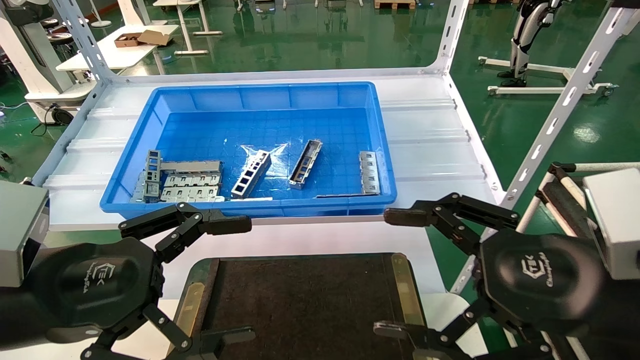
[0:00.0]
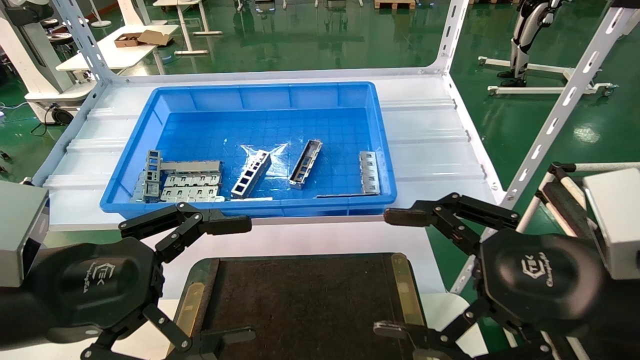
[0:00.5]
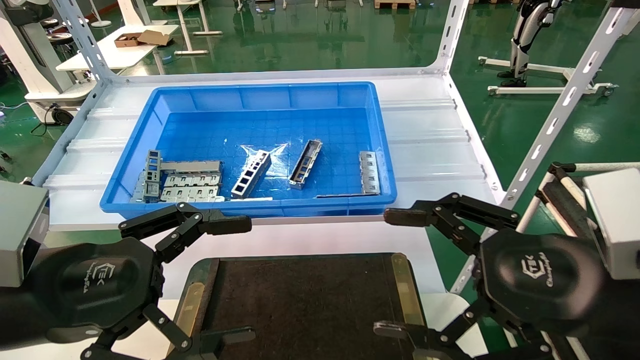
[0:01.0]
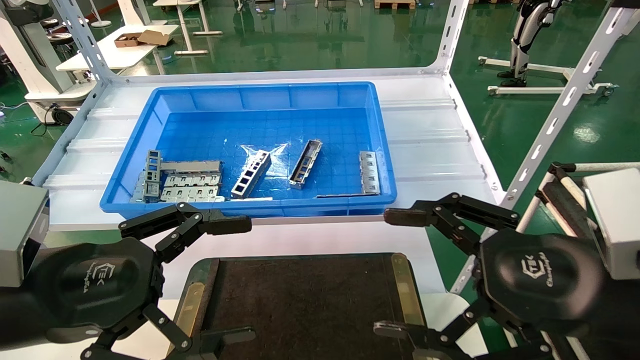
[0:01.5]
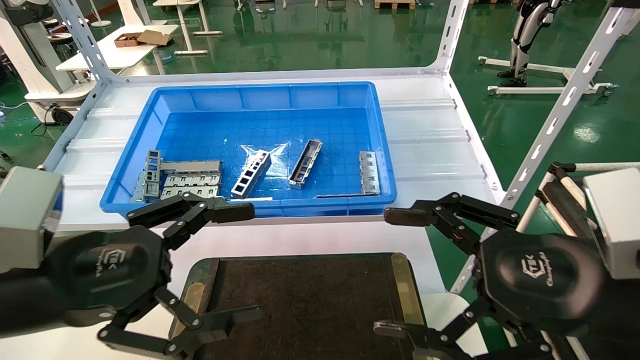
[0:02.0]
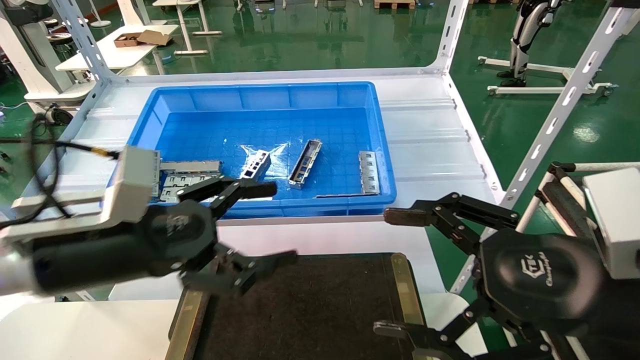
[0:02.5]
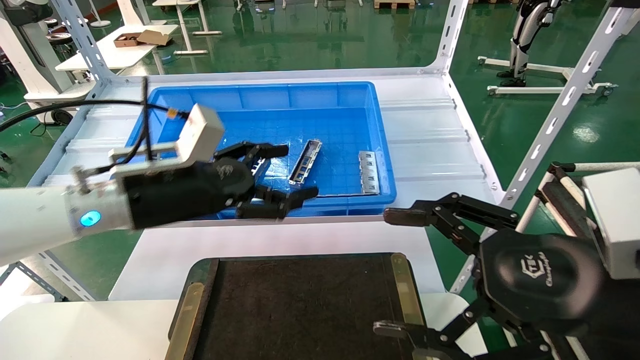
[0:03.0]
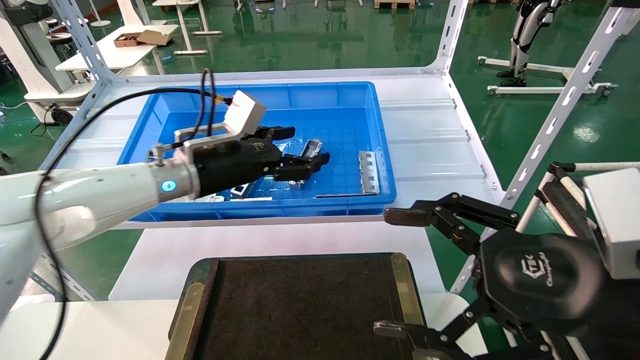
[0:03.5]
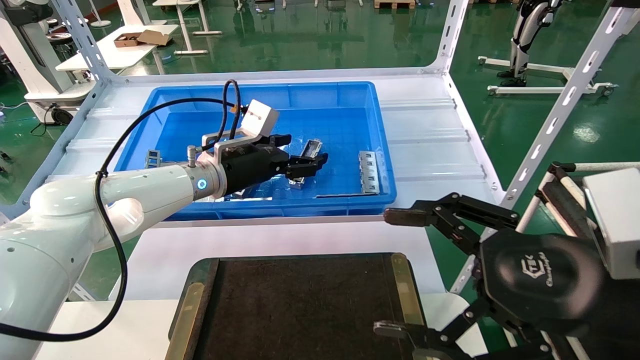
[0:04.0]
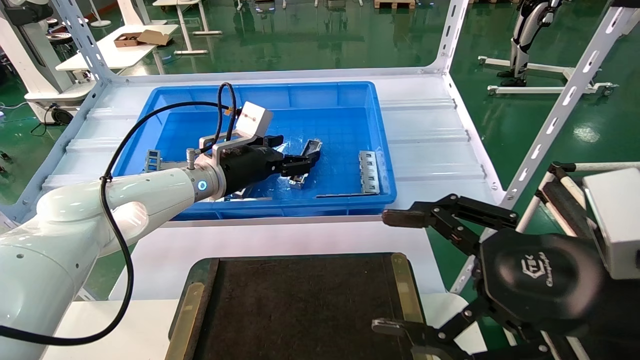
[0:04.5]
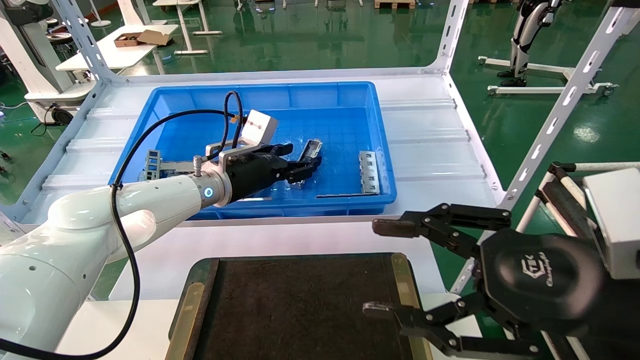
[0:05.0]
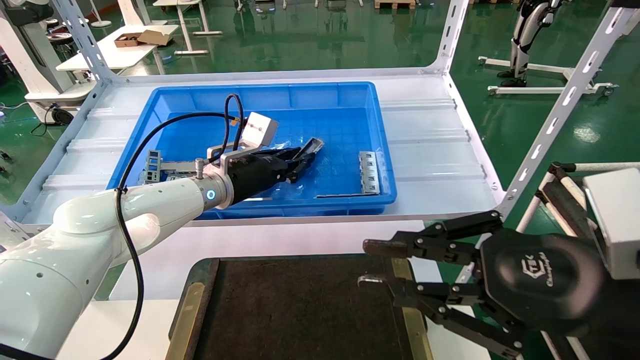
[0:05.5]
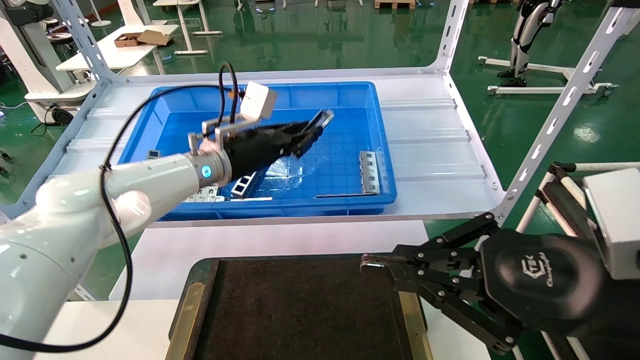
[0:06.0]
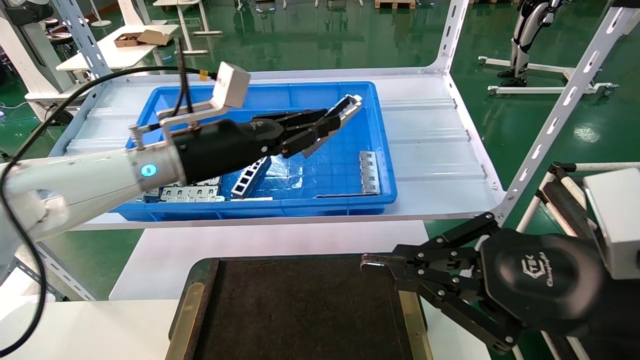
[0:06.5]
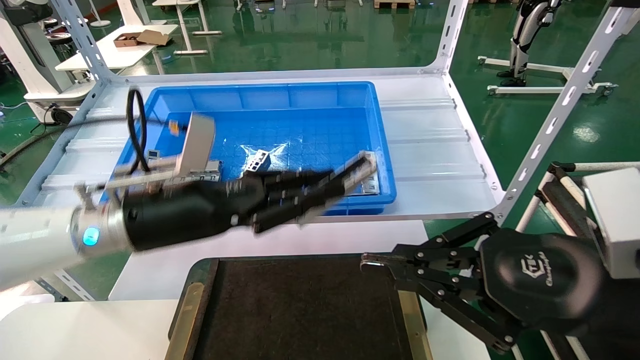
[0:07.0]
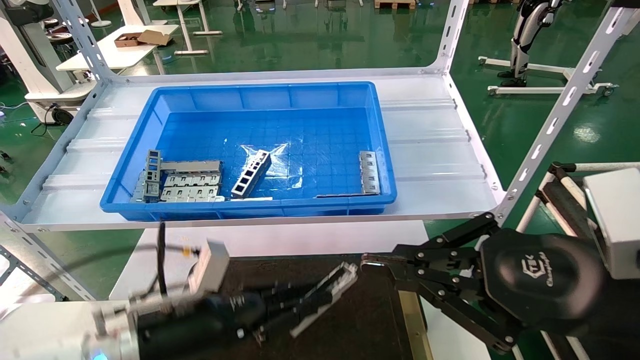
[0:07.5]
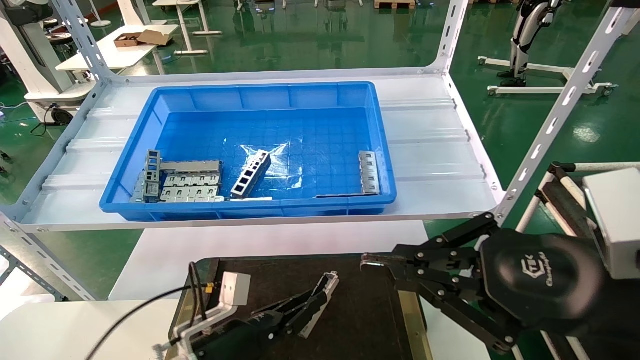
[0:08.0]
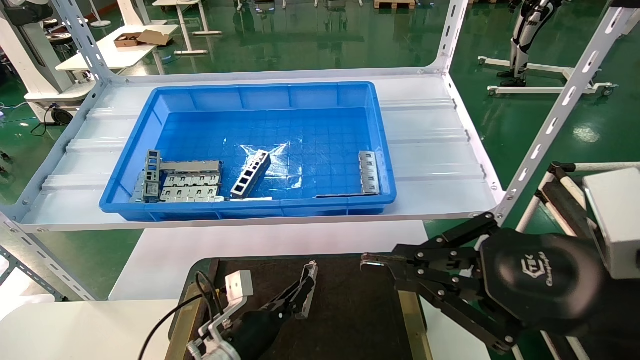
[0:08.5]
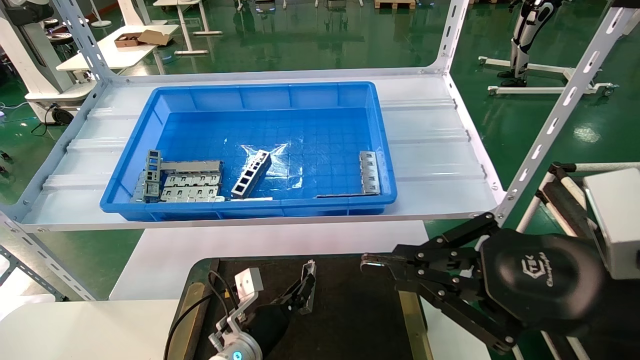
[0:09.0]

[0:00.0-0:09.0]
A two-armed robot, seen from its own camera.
Task of the whole recording: Grasp the part with one hand and place it on the black container.
Step, 0:02.5 to 0:06.0: Pick up the front USB bracket from the feeding area.
0:00.0 to 0:02.0: There are only small adjustments of the grippers.
0:02.0 to 0:04.5: The left gripper travels forward by about 30 cm.
0:04.5 to 0:07.0: The left gripper moves backward, roughly 15 cm, and closes. Meanwhile the right gripper closes up.
0:07.0 to 0:09.0: The left gripper travels downward by about 30 cm.

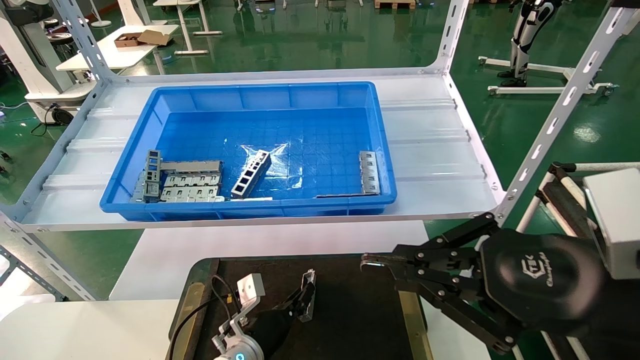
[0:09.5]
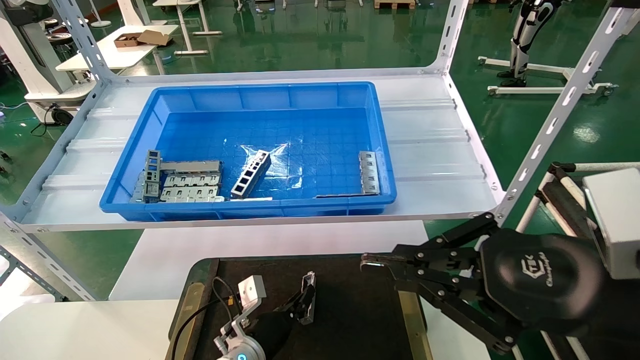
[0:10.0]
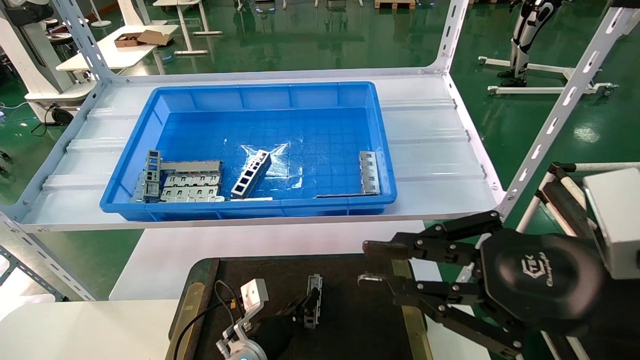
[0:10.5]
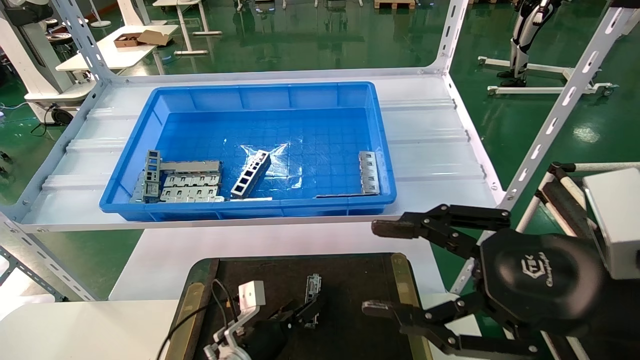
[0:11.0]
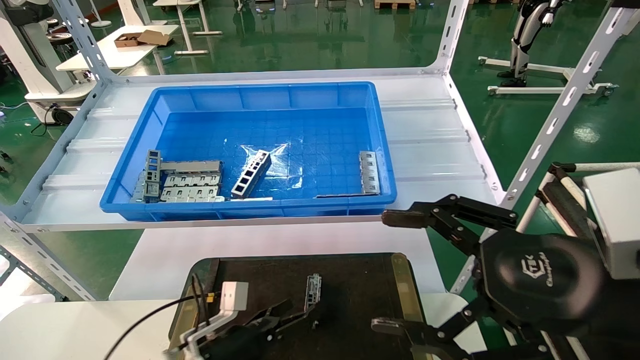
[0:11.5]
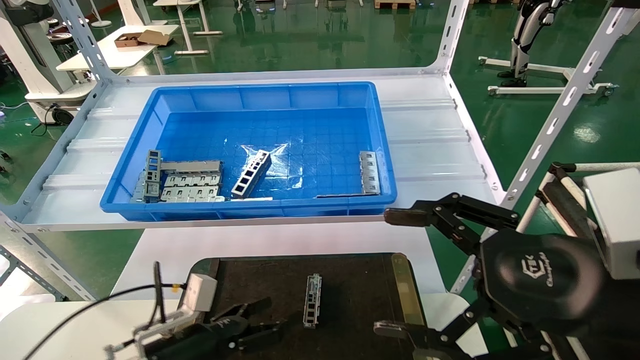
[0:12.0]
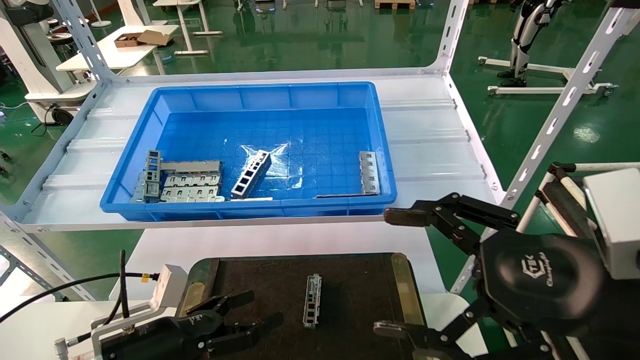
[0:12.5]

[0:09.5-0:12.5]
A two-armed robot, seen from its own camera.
Task of the whole recording: Grasp the part with one hand and place it on the black container.
0:09.5 to 0:11.0: The right gripper opens its fingers, while the left gripper opens up.
0:11.0 to 0:12.5: The right gripper opens its fingers. Meanwhile the left gripper heads to the left, upward and backward, covering about 20 cm, and opens.
